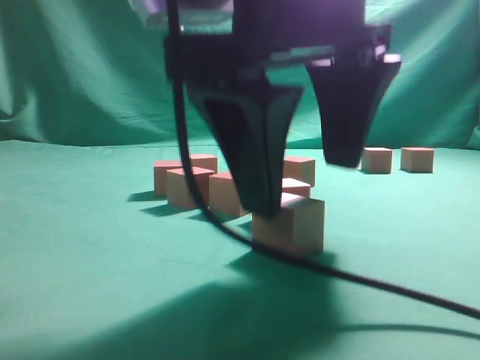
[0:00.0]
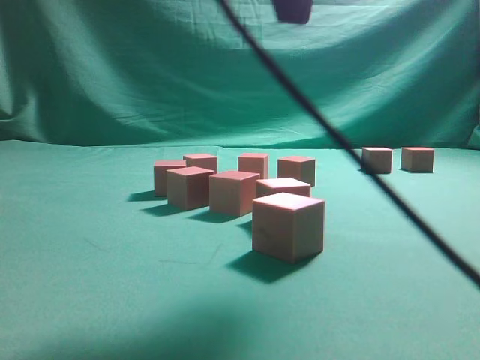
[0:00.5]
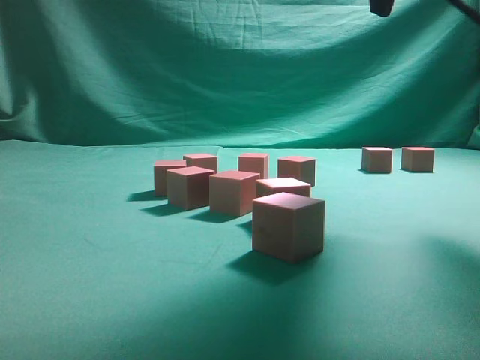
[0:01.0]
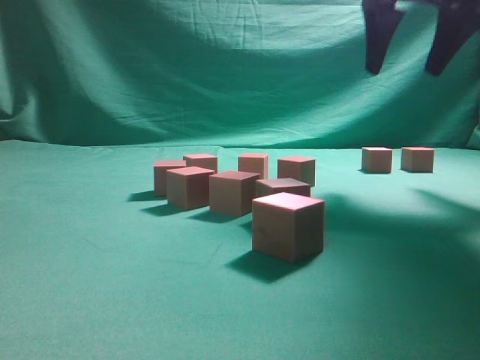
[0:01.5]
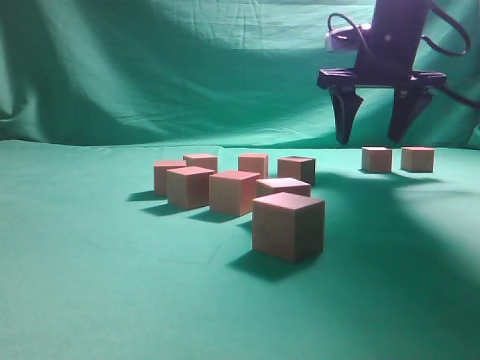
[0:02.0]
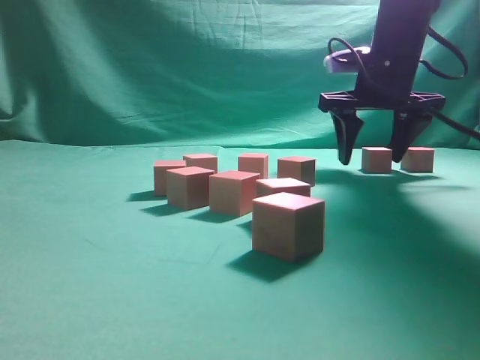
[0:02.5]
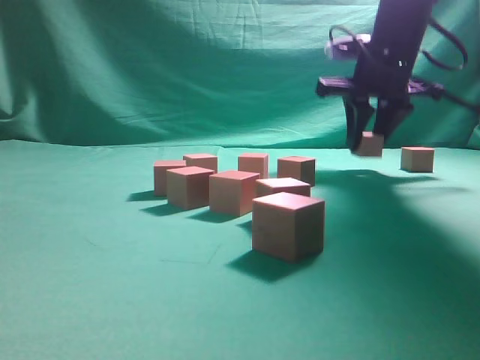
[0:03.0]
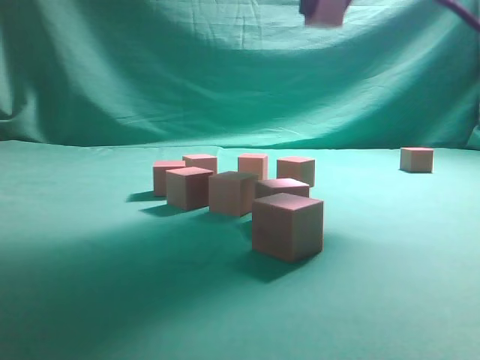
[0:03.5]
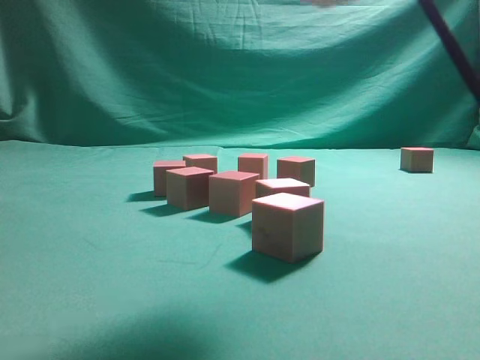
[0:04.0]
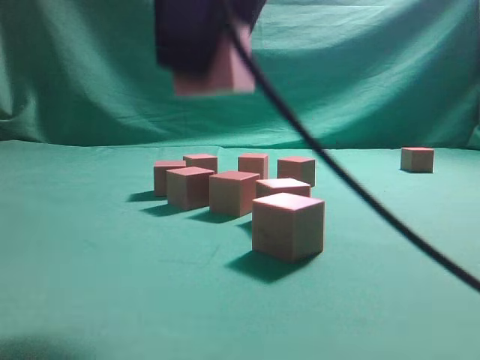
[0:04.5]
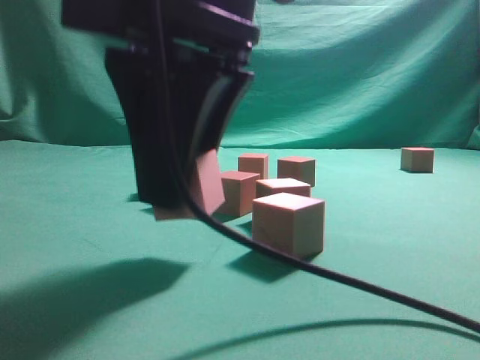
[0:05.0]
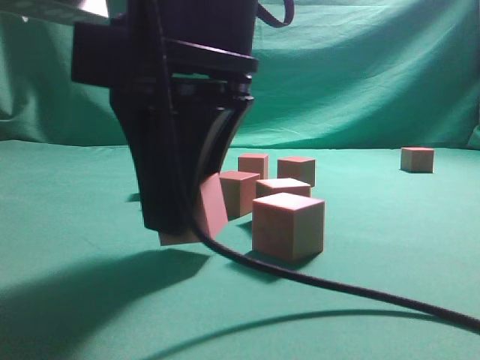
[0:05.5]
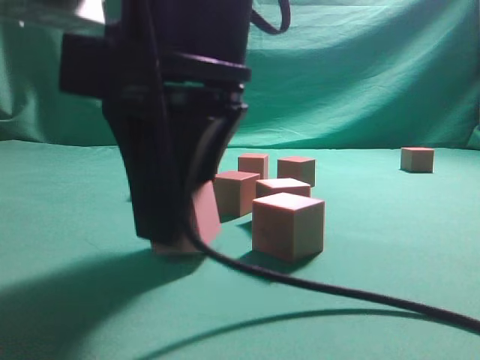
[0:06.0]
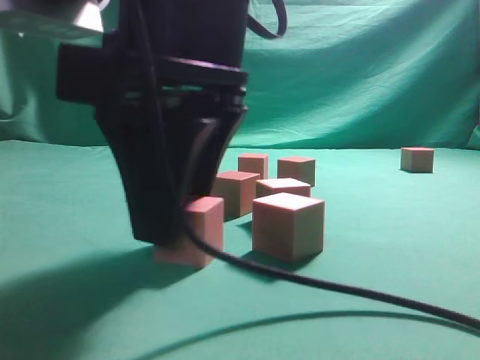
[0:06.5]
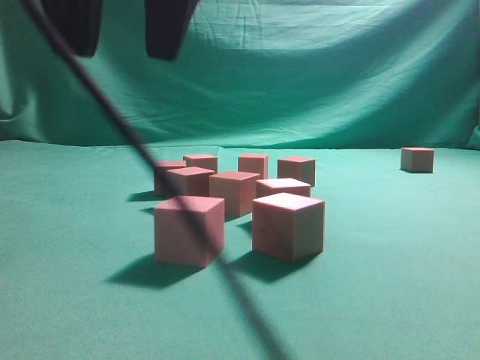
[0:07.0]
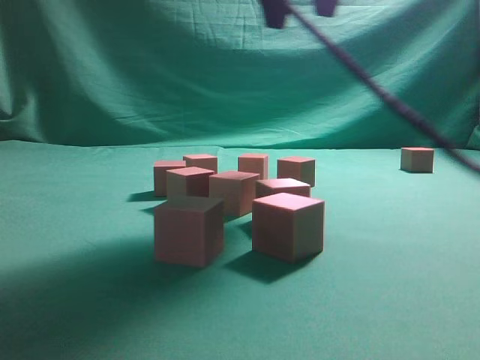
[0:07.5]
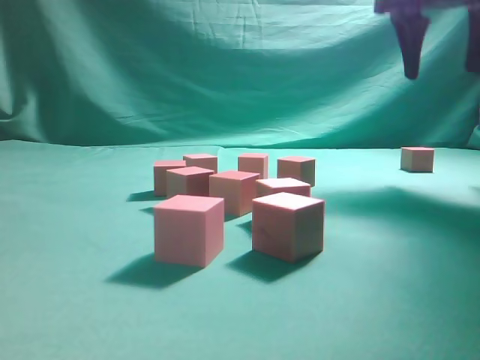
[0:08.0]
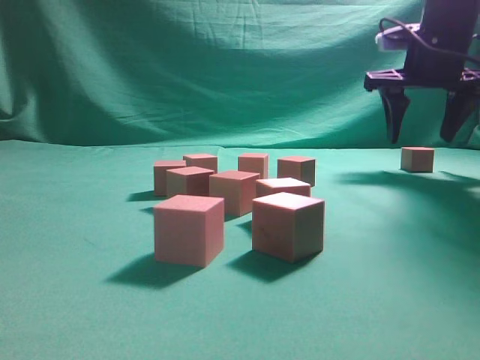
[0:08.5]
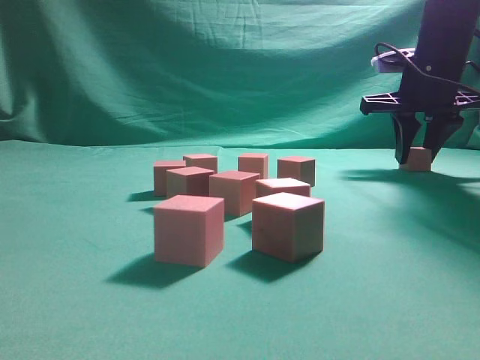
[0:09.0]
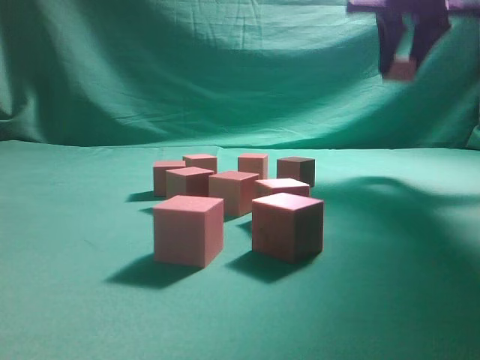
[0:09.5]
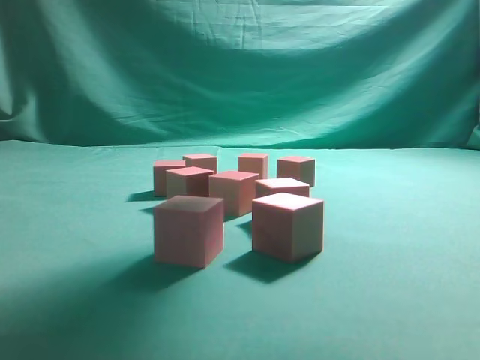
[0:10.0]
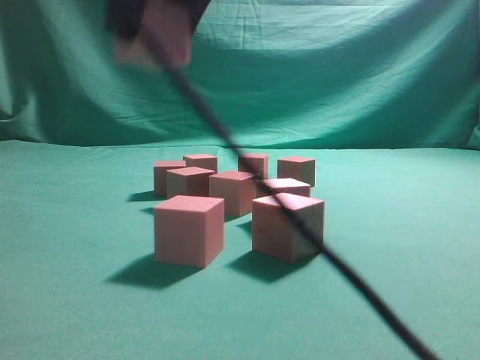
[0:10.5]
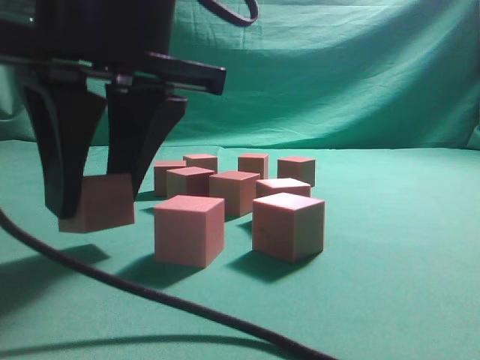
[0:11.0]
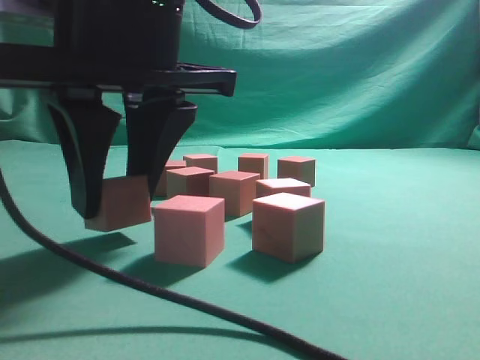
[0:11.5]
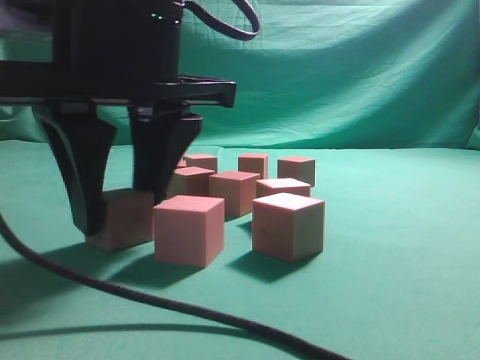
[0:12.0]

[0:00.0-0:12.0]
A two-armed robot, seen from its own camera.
Task of the whole recording: pick up the multiple cubes in two columns one by one and place them in another position on the table.
Step, 0:00.5 to 0:03.0: Pick up the block on the table.
Step, 0:03.5 to 0:06.5: Place the block at the correct position to assemble the letter S.
Step, 0:07.0 to 0:09.0: Pick up the block on the table.
0:00.0 to 0:02.0: The right gripper goes some 30 cm forward and to the right.
0:02.0 to 0:04.0: The right gripper shifts roughly 25 cm backward, upward and to the left, and closes up.
0:04.0 to 0:06.0: The right gripper moves downward and to the left, roughly 15 cm.
0:06.0 to 0:08.0: The right gripper shifts about 35 cm to the right, forward and upward, and opens.
0:08.0 to 0:10.0: The right gripper travels backward, to the left and upward by approximately 15 cm, and closes up.
0:10.0 to 0:12.0: The right gripper goes about 25 cm downward, to the left and backward.
